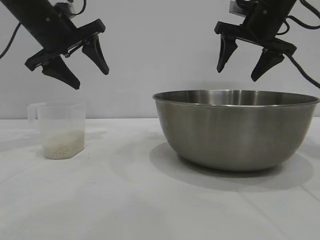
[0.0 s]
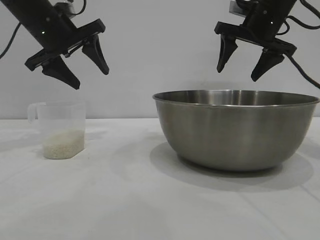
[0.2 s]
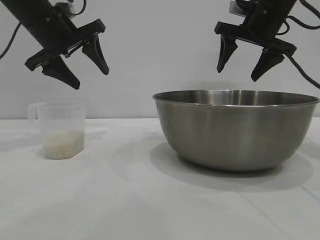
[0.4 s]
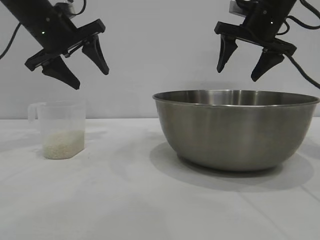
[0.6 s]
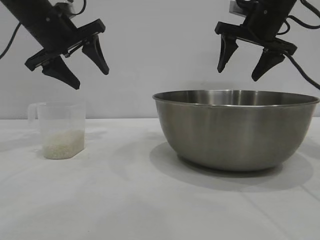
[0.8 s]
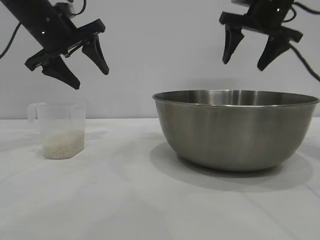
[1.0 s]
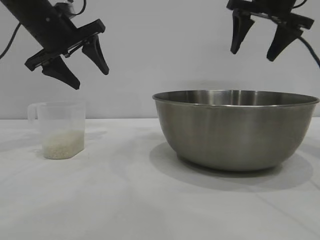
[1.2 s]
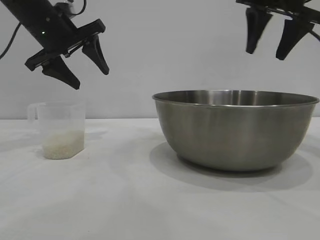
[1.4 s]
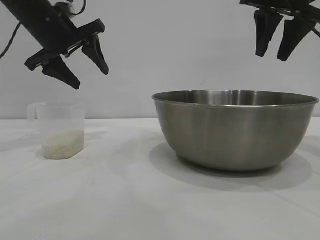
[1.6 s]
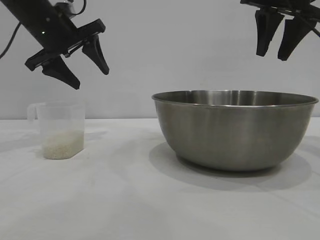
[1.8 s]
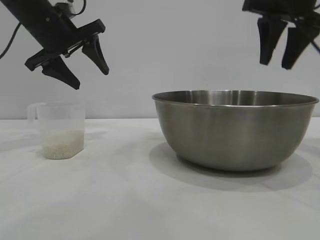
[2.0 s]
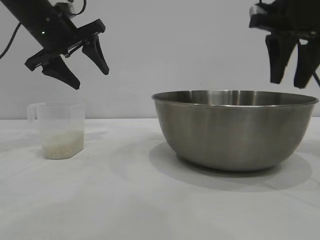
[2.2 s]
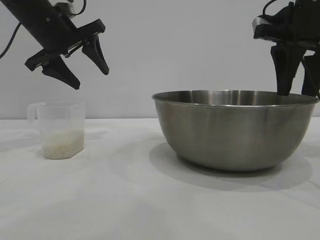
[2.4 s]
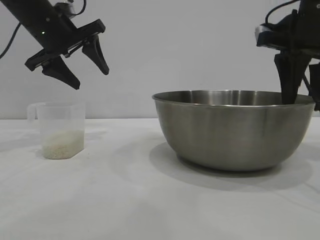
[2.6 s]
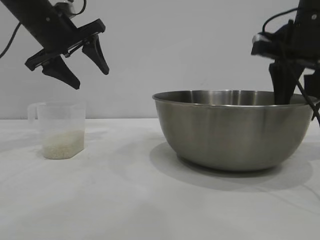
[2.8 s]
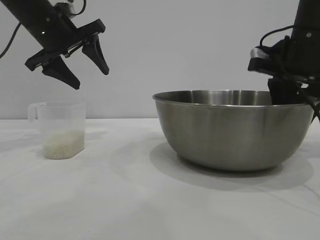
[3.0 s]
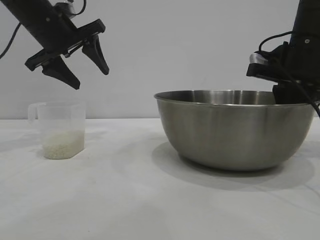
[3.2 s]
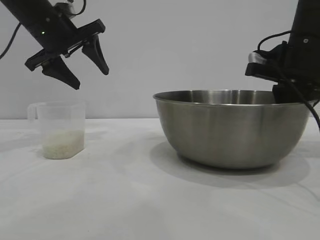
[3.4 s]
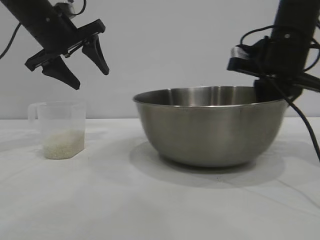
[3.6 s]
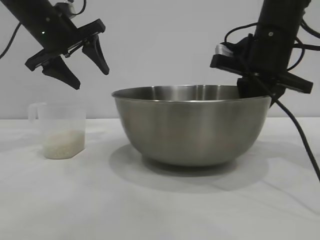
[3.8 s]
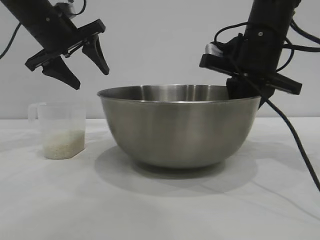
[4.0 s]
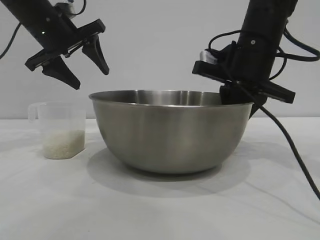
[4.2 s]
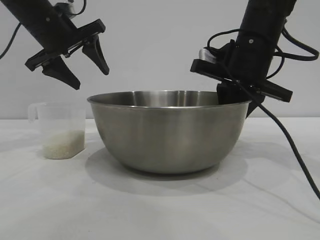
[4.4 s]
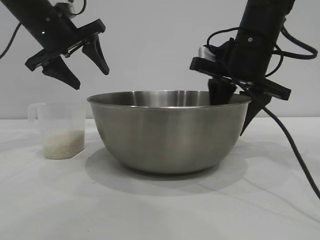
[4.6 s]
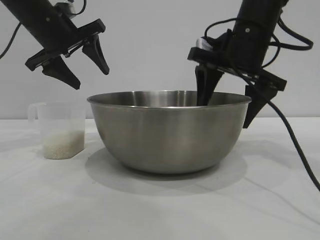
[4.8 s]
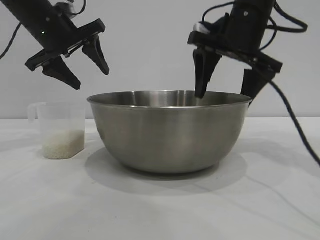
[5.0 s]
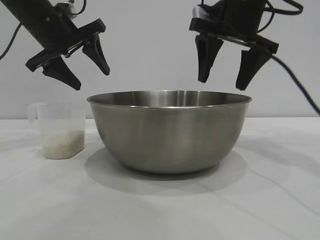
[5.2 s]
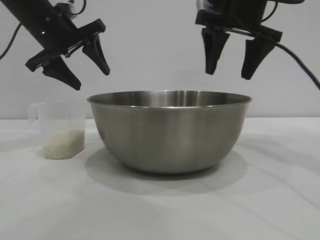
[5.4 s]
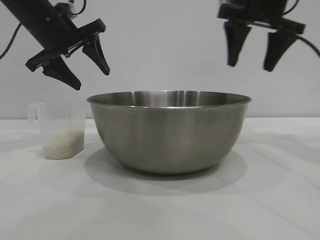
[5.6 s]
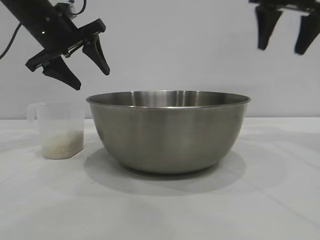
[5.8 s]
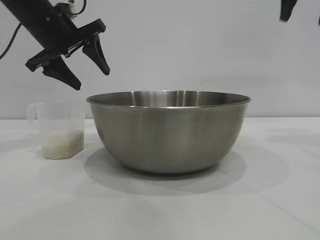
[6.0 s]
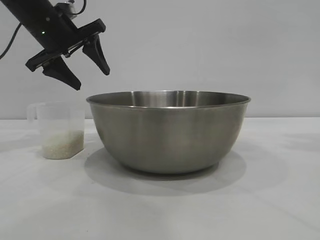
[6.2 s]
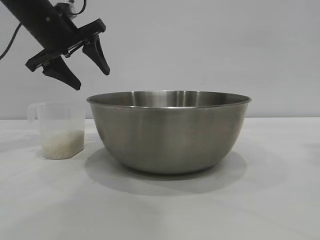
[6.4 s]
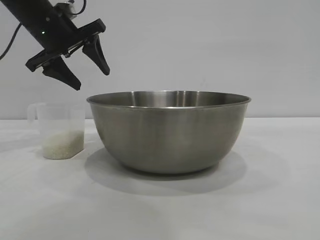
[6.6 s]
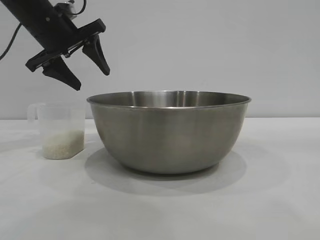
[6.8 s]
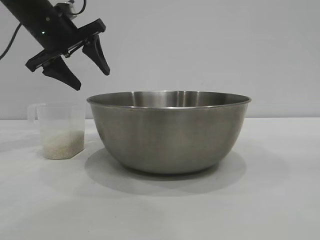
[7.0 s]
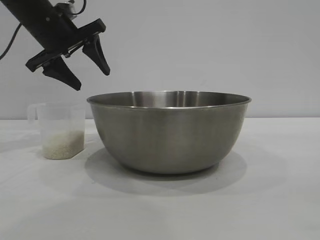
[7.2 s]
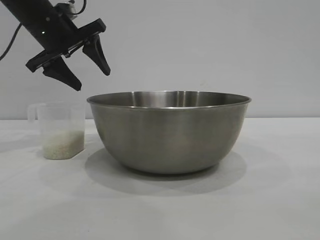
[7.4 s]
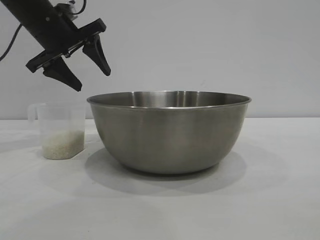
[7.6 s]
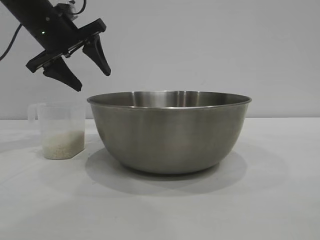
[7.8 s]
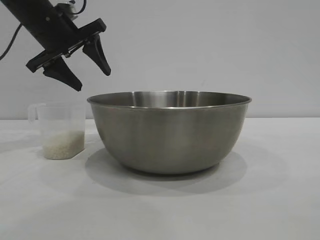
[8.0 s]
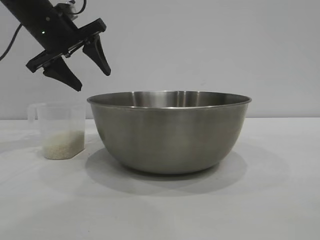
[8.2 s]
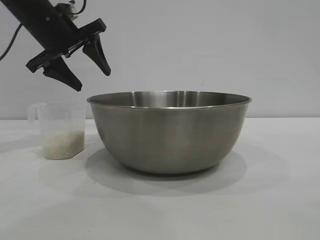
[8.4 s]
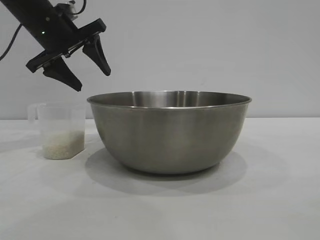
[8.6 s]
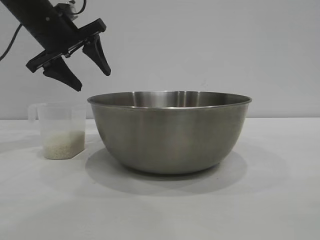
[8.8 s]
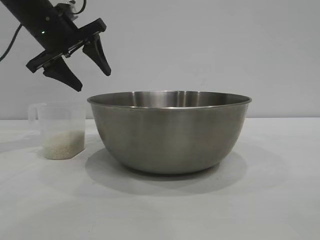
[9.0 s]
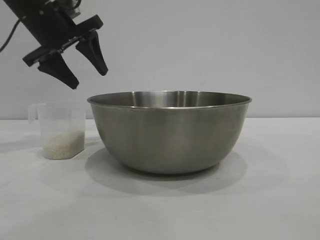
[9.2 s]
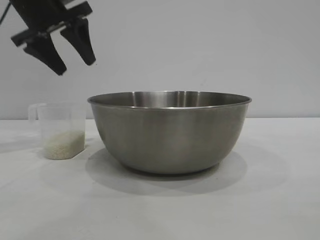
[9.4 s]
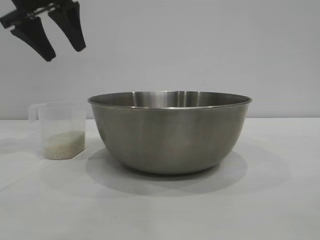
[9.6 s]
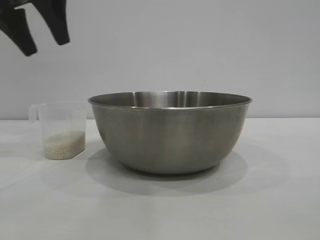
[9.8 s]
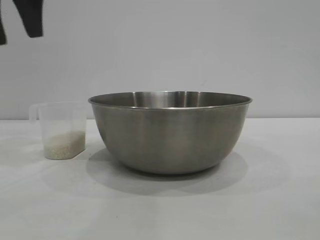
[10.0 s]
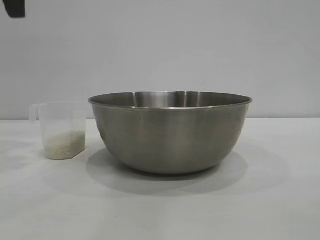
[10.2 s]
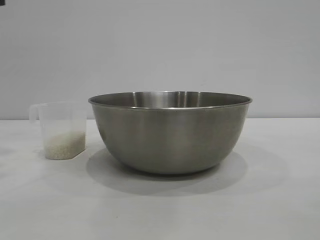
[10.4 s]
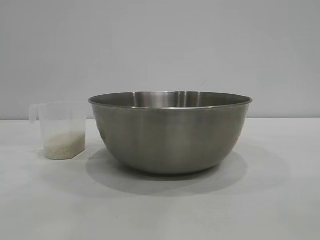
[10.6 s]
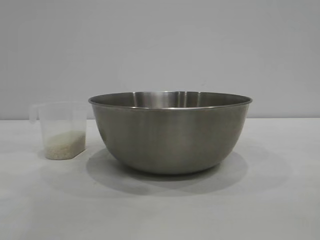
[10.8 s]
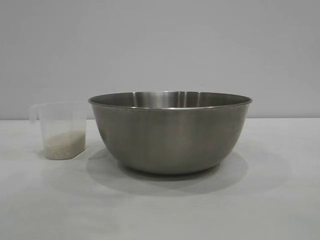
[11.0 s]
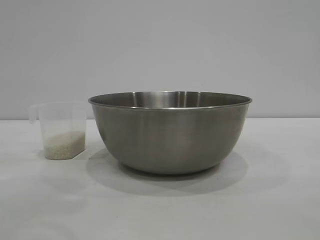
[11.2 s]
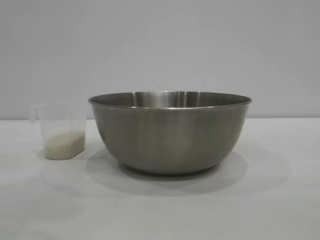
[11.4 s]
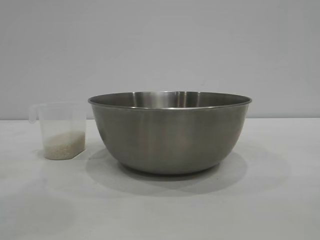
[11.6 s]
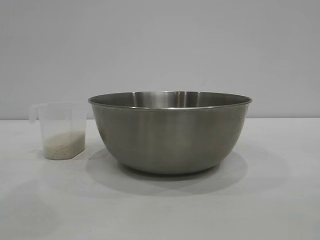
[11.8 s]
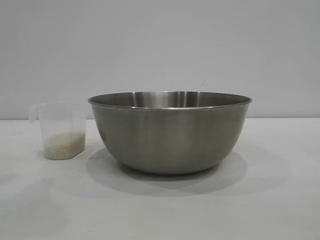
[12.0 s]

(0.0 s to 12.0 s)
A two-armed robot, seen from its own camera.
Task of the whole recording: the right gripper grasp the rice container and place it in the center of the table, the left gripper grasp the rice scoop and pour the rice into the rice container.
Step, 0.0 s - 5.2 s: Move the bowl to the center of view with the right gripper.

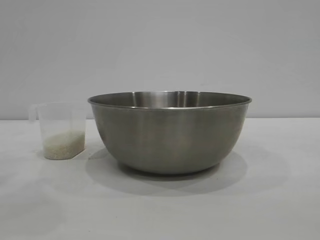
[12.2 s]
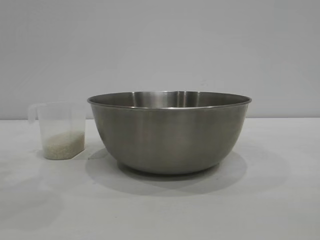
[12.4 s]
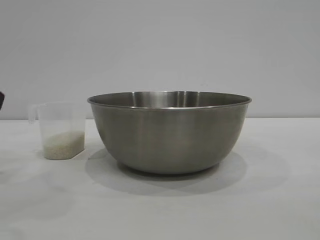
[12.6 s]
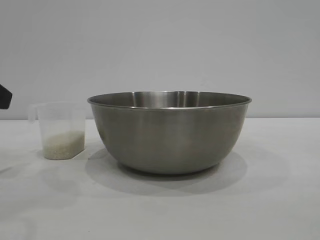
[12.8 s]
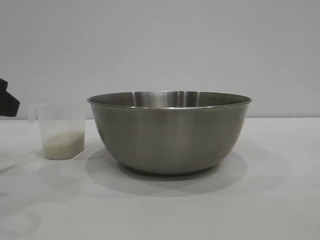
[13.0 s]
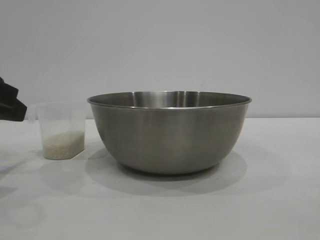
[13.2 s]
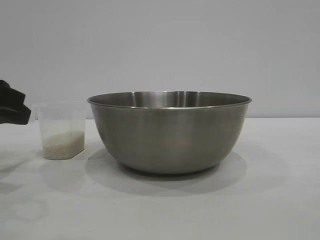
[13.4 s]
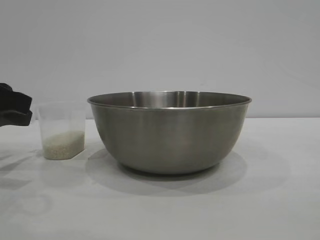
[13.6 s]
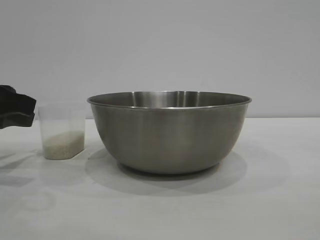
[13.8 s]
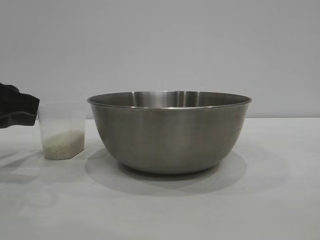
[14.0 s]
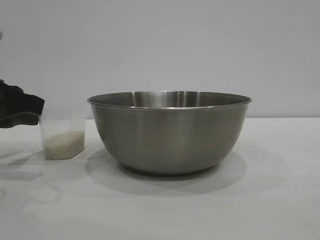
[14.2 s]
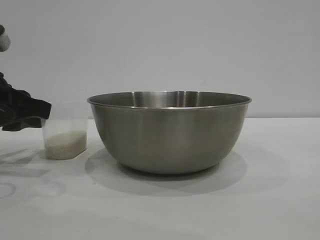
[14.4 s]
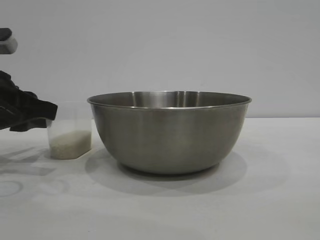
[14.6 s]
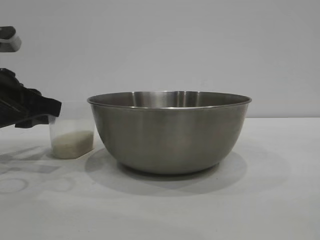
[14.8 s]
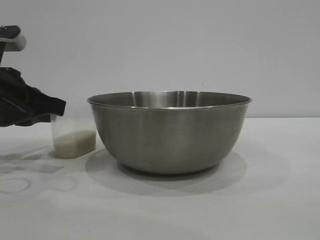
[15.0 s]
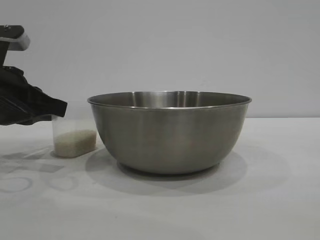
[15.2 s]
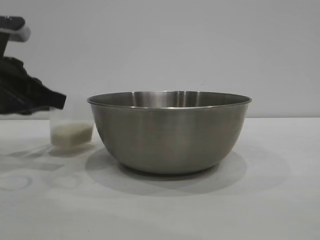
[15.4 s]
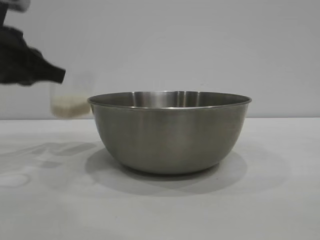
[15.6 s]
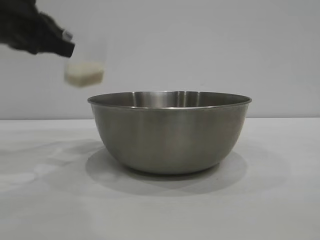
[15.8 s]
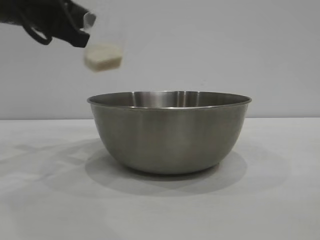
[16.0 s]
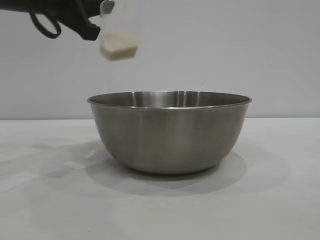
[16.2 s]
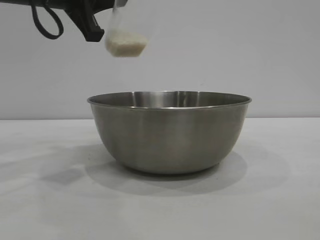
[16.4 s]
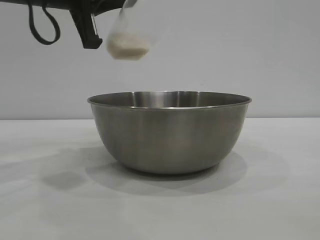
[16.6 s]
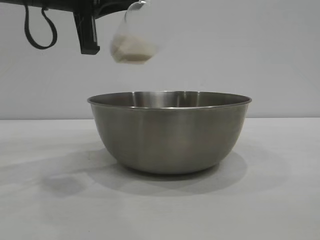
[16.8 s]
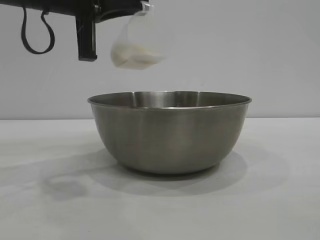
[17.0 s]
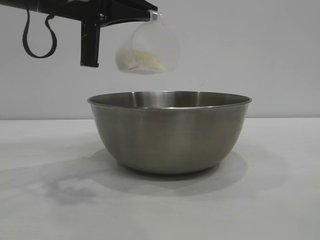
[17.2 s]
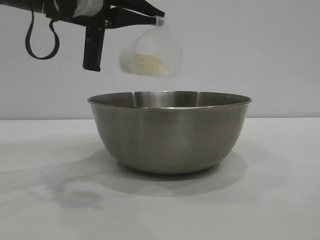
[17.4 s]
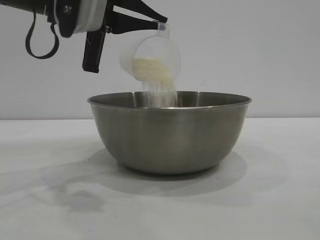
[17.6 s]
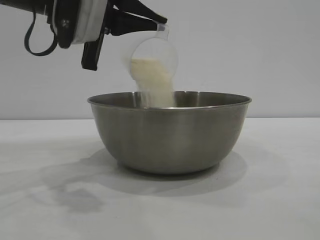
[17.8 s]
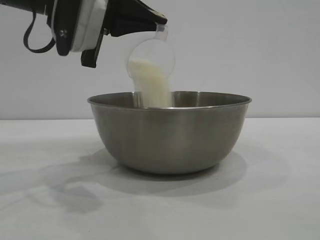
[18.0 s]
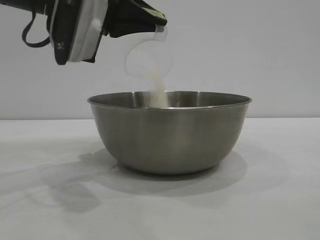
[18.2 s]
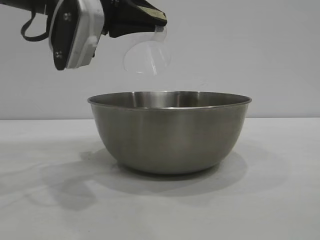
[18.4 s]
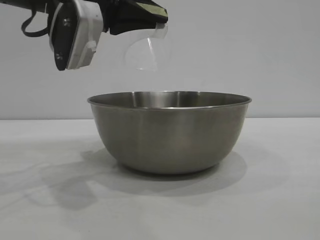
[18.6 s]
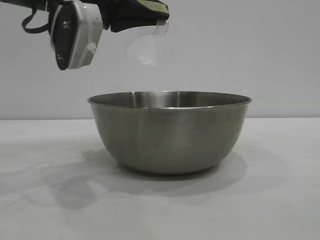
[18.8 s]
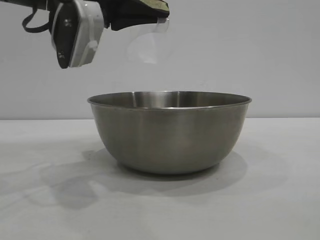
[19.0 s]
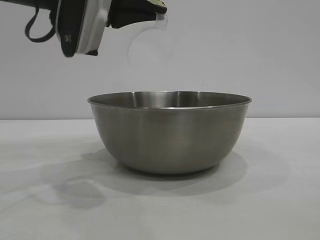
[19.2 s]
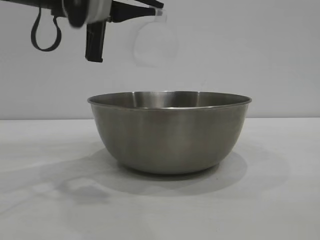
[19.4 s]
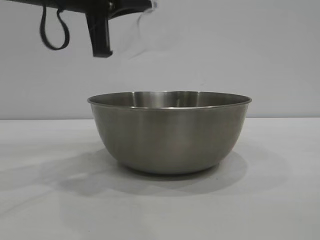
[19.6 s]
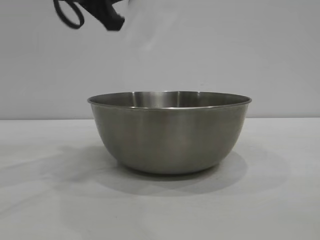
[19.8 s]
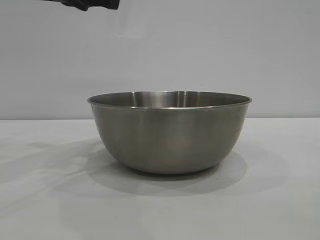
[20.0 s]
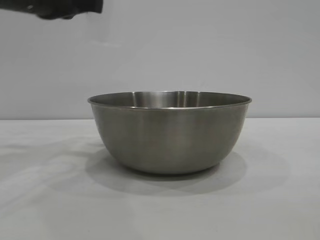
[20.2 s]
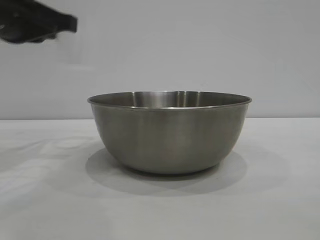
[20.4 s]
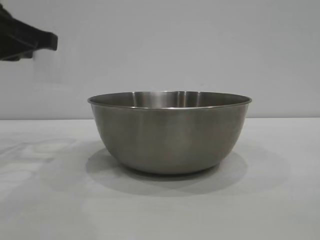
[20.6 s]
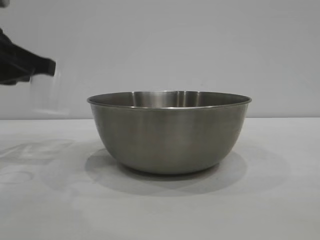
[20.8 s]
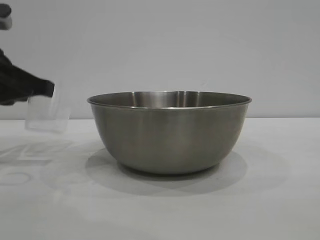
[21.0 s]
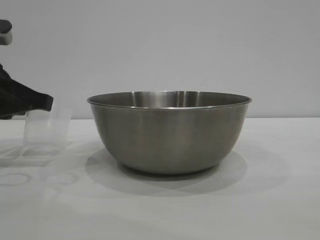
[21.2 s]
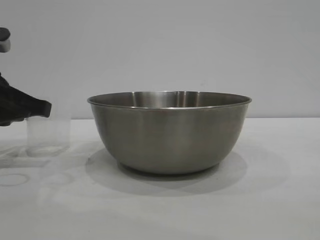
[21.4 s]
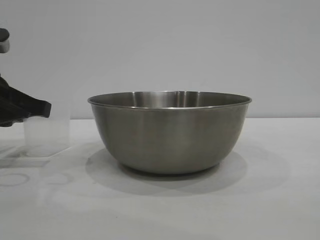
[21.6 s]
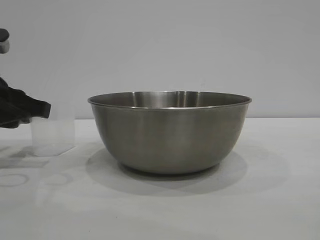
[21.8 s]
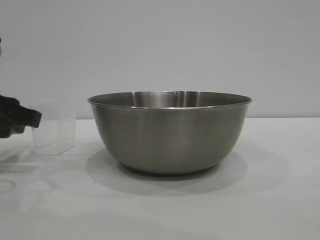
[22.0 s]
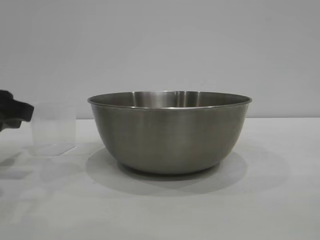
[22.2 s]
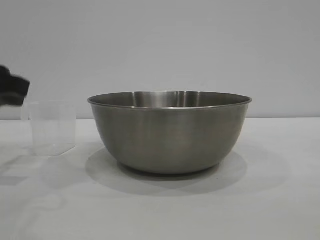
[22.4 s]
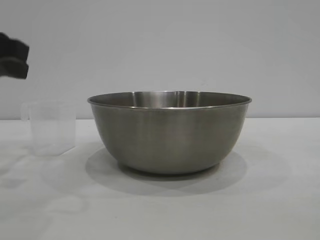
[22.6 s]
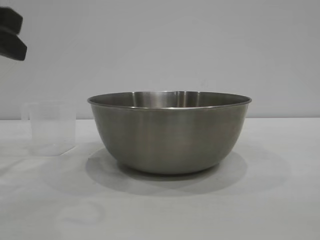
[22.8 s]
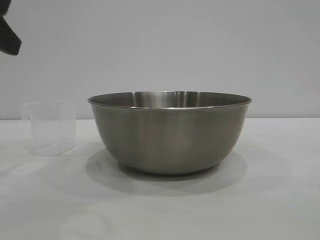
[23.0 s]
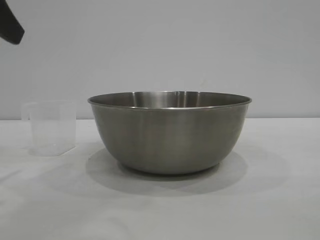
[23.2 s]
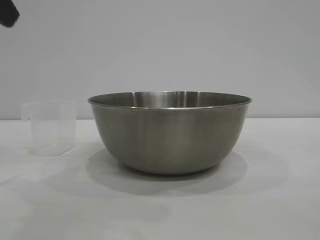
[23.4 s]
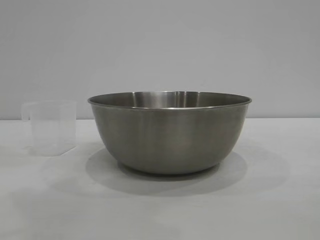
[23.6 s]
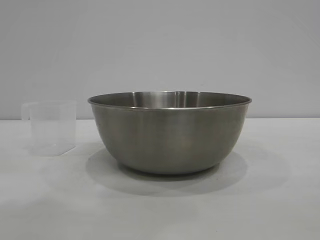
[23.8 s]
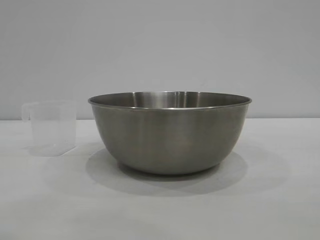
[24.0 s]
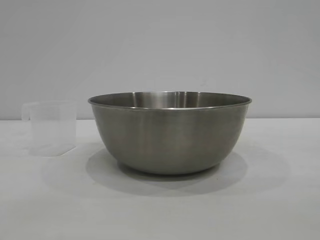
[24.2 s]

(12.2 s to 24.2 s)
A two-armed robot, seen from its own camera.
Task of the whole recording: the right gripper grasp the rice container and place it in the center of the table, the left gripper grasp the rice scoop and pour the rice into the rice container.
Step, 12.2 s - 15.6 s: Pick up the cup with rice in it with the left gripper.
Step, 15.8 s - 19.4 s: Pour the rice from the cup into the bowl with the left gripper.
Step, 19.8 s - 22.2 s: Place the cup on the table with the left gripper.
